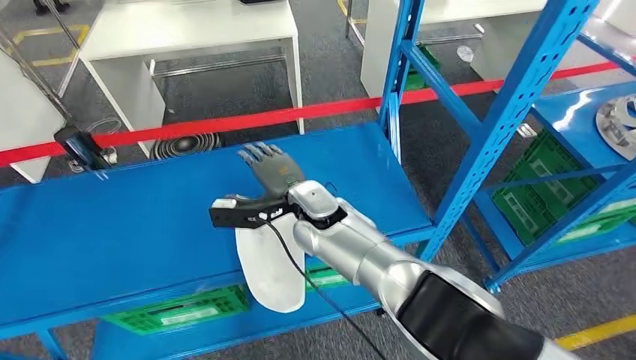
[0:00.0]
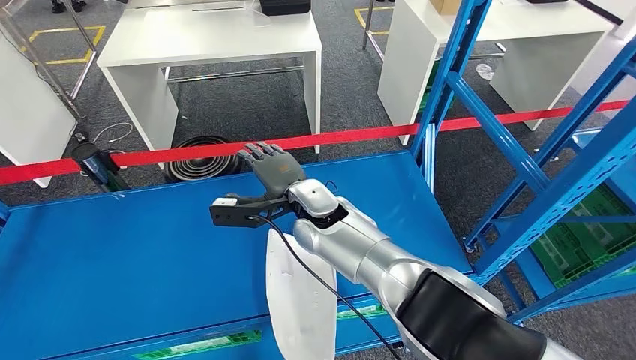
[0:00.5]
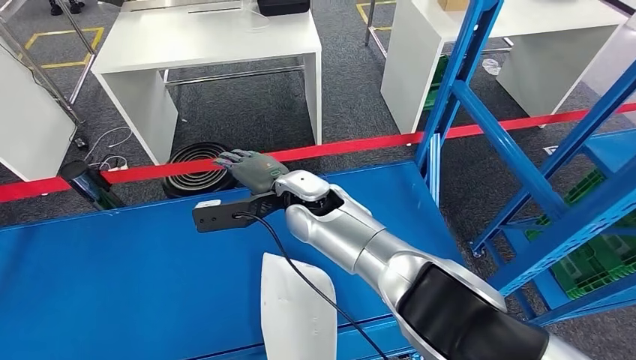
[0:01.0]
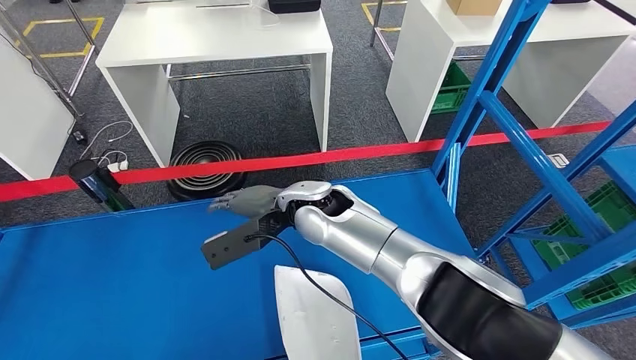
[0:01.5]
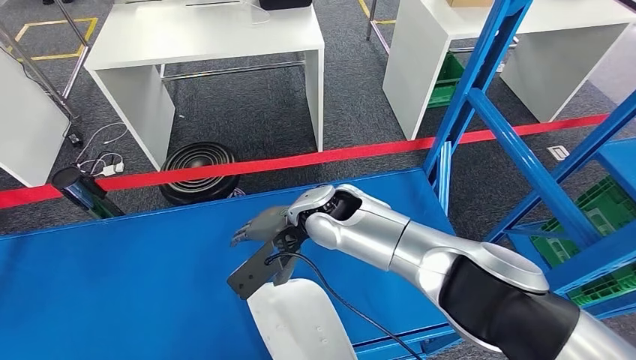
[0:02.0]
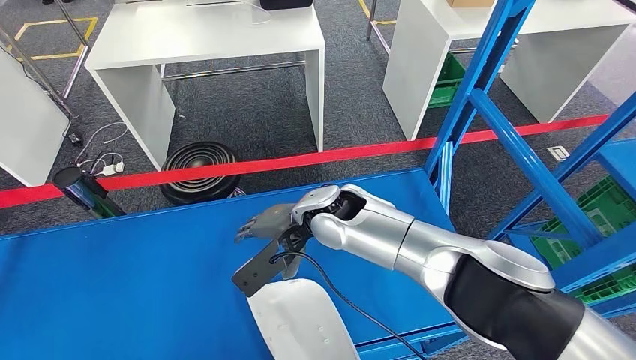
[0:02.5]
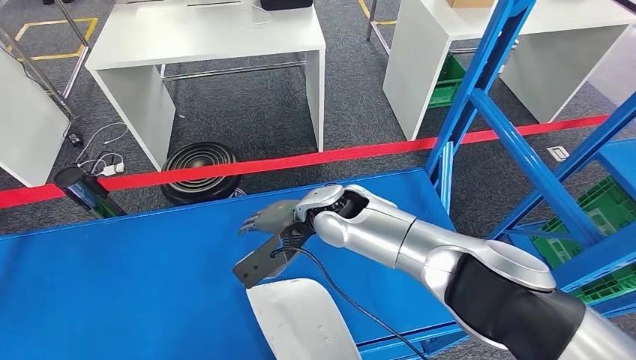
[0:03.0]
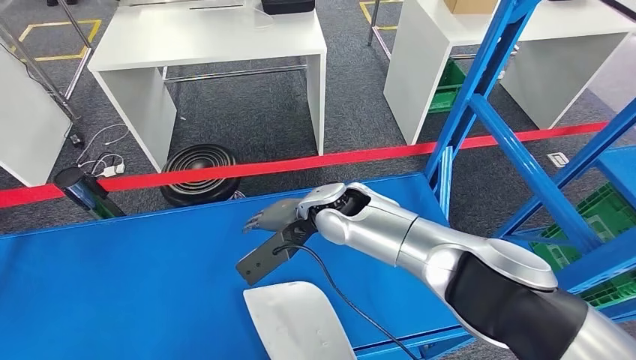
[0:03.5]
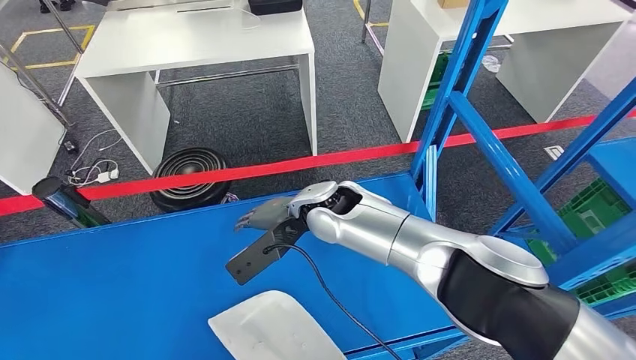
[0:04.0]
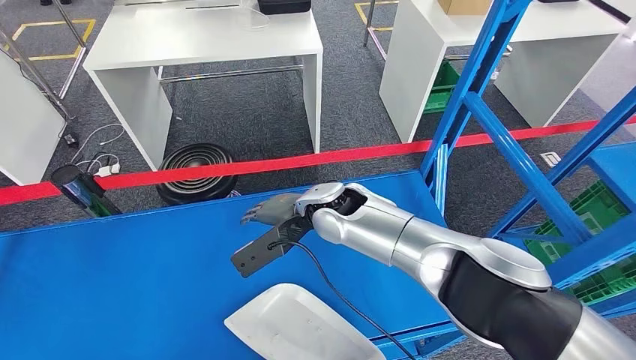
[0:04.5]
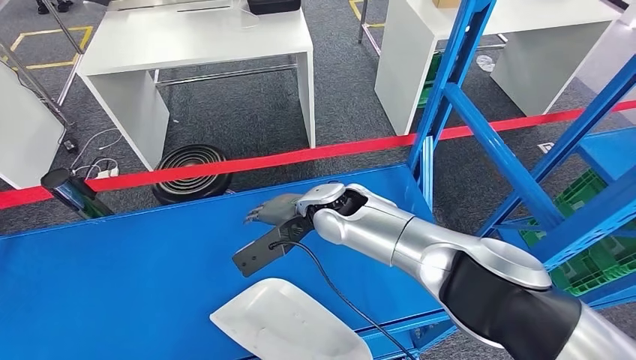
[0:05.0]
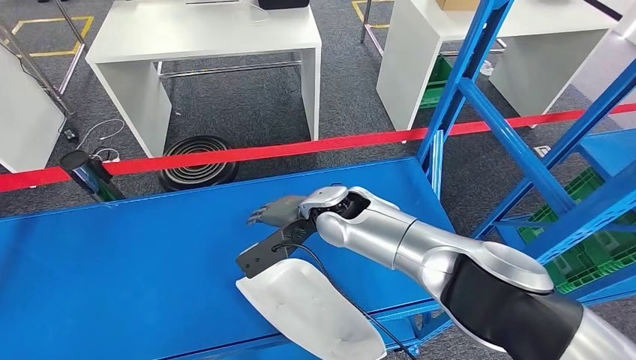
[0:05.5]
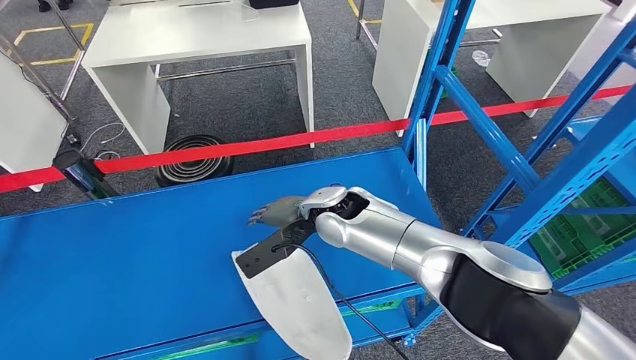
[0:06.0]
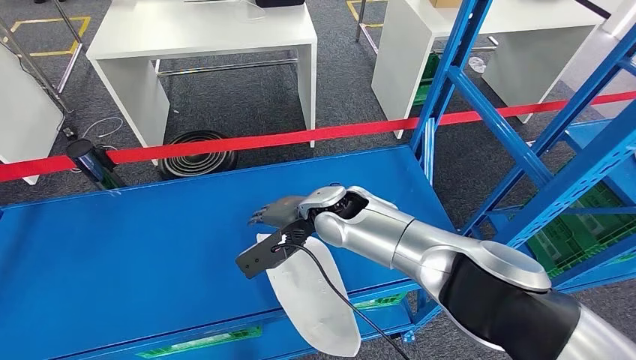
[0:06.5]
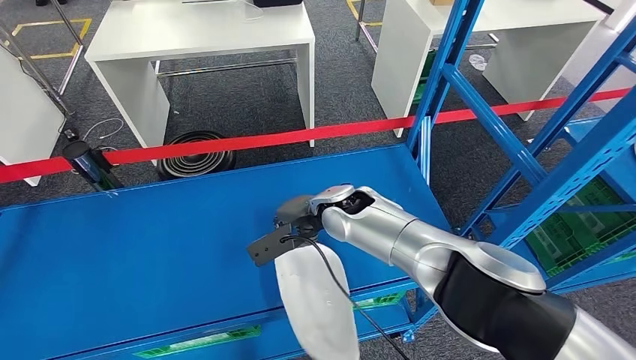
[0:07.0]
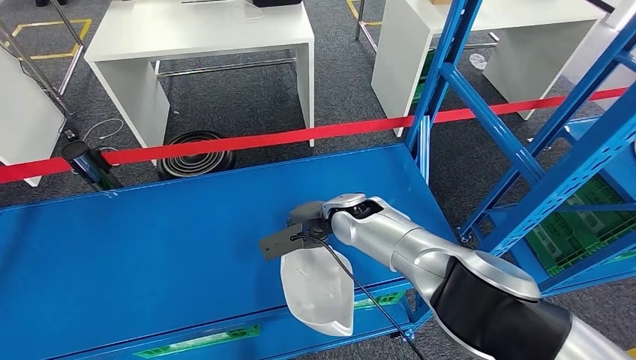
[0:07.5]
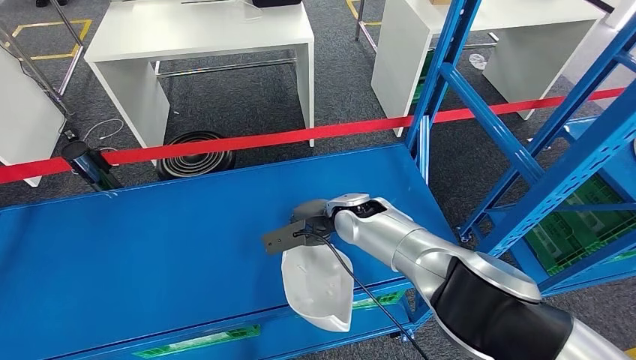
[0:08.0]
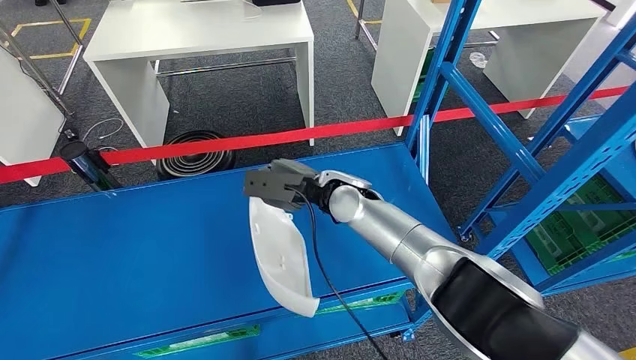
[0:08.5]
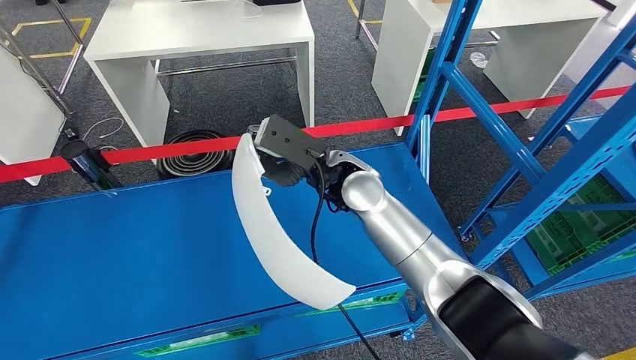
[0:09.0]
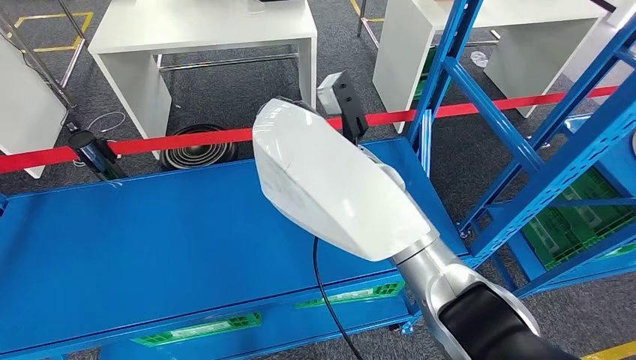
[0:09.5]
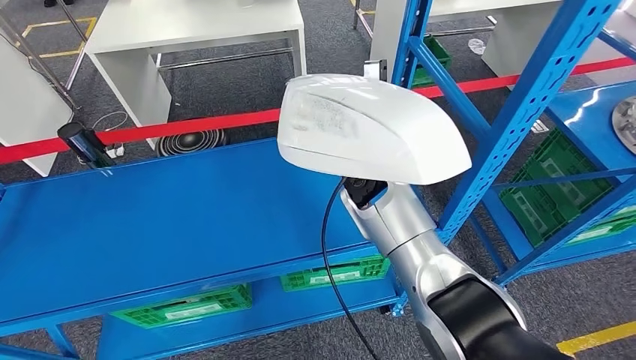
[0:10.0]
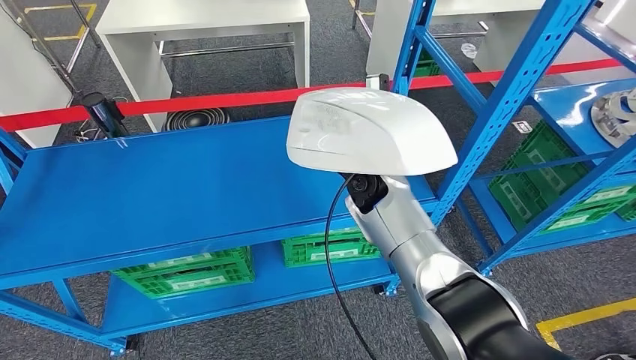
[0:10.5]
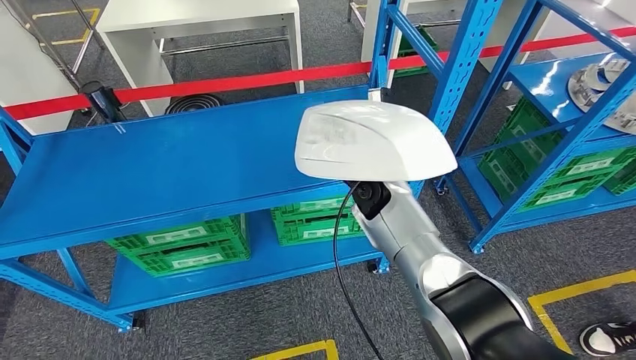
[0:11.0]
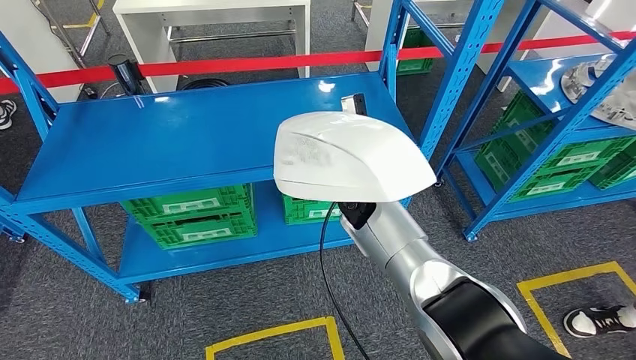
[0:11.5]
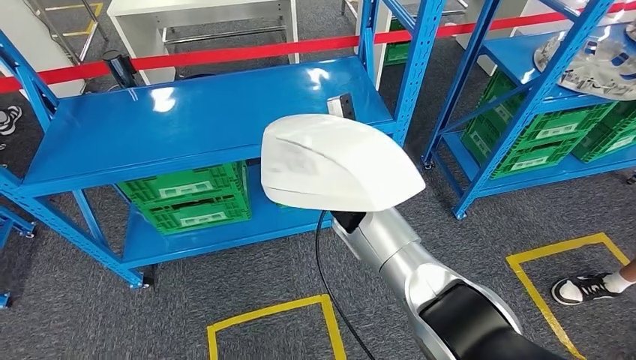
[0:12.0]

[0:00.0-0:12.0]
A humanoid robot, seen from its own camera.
Step, 0:00.0 to 0:09.5: Pick up the small parts from the shelf.

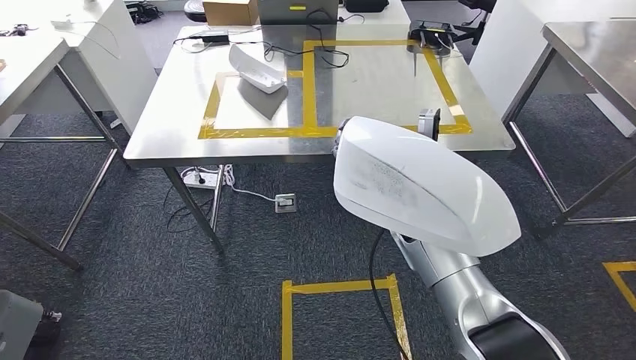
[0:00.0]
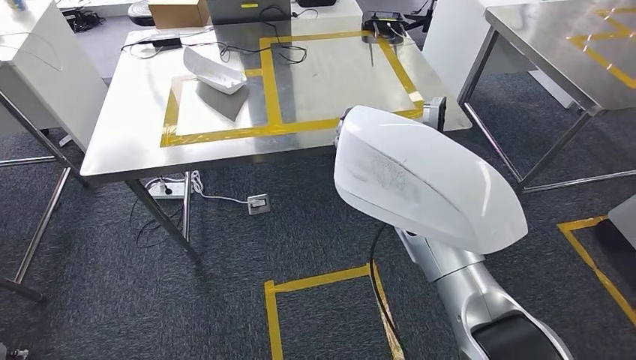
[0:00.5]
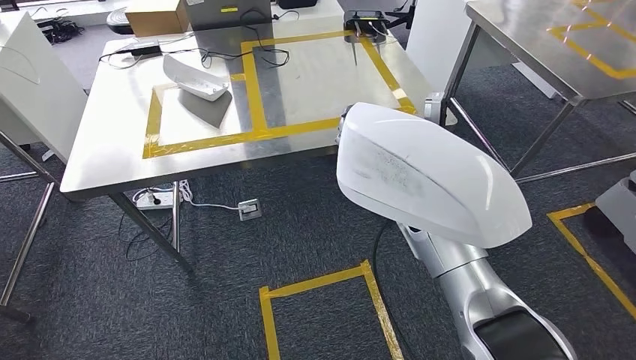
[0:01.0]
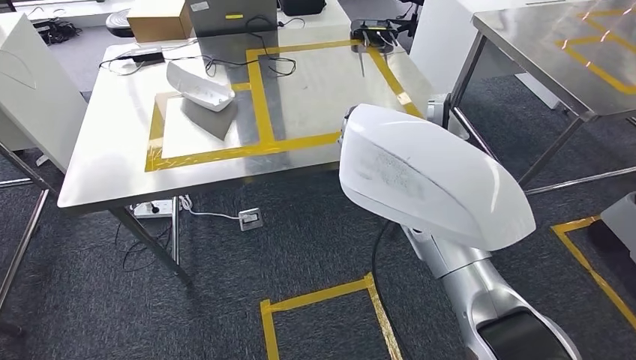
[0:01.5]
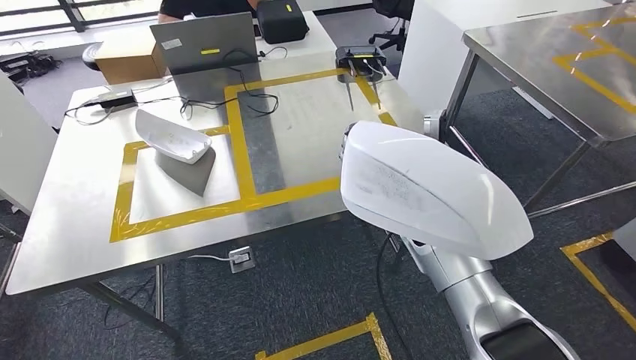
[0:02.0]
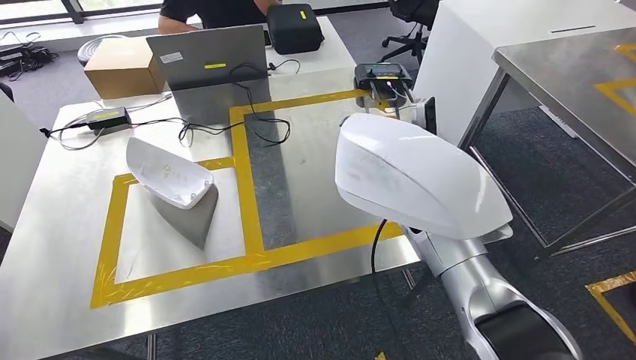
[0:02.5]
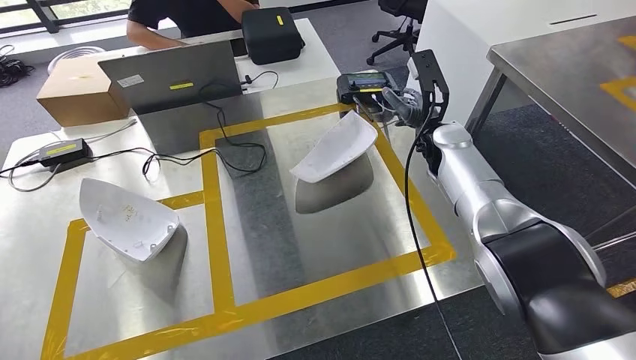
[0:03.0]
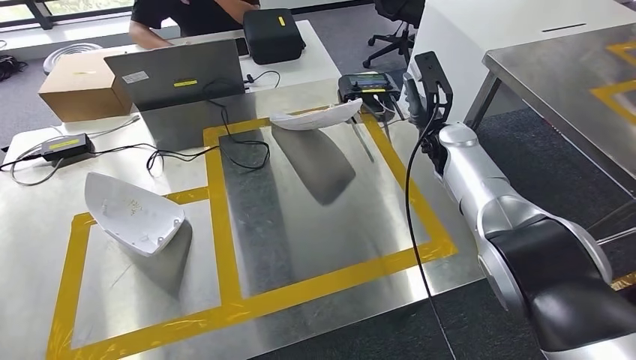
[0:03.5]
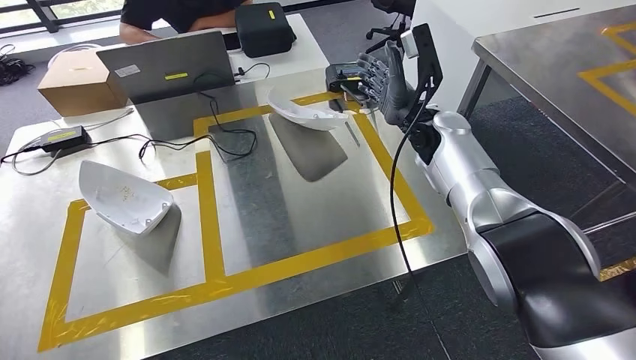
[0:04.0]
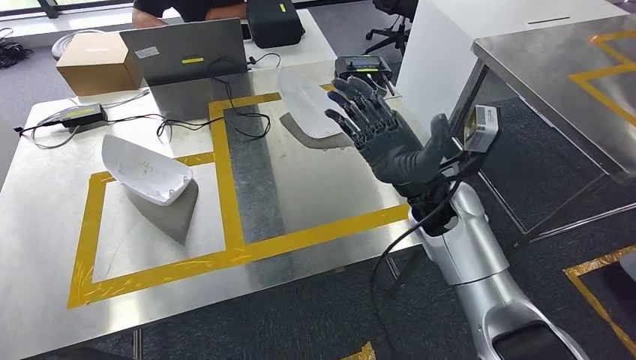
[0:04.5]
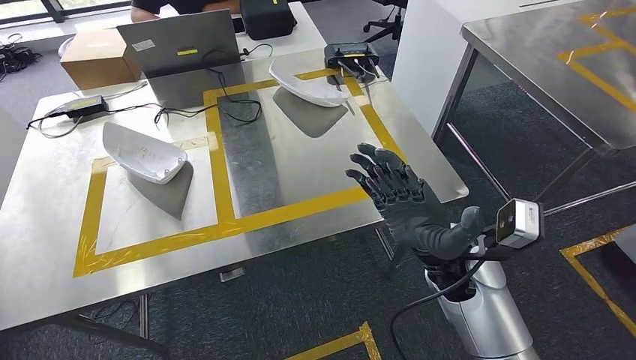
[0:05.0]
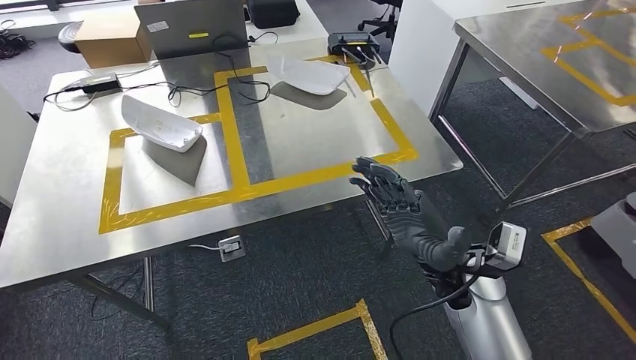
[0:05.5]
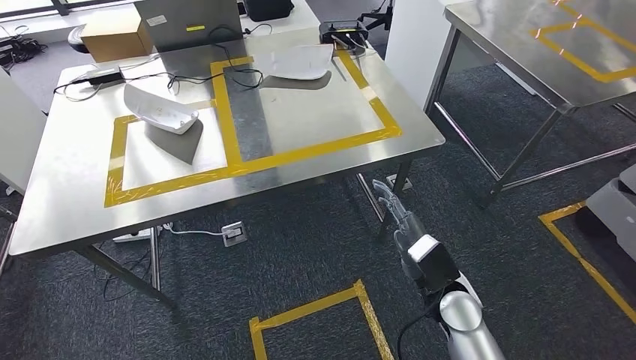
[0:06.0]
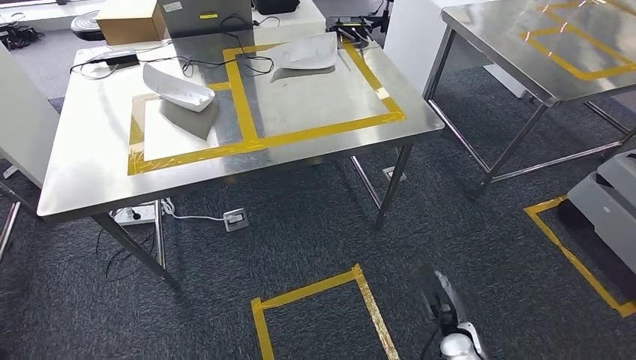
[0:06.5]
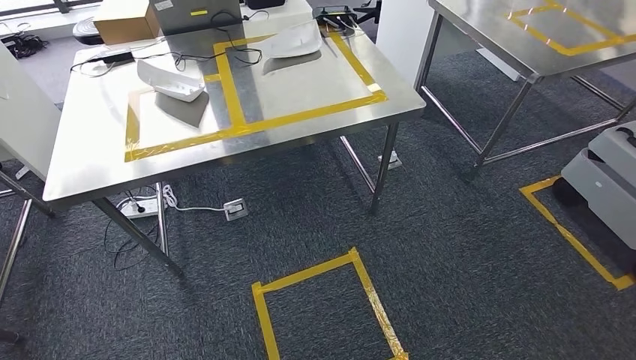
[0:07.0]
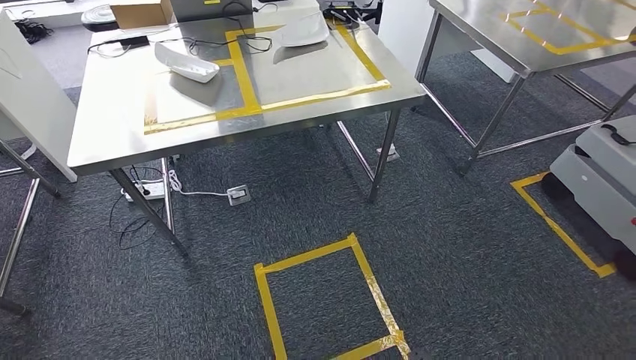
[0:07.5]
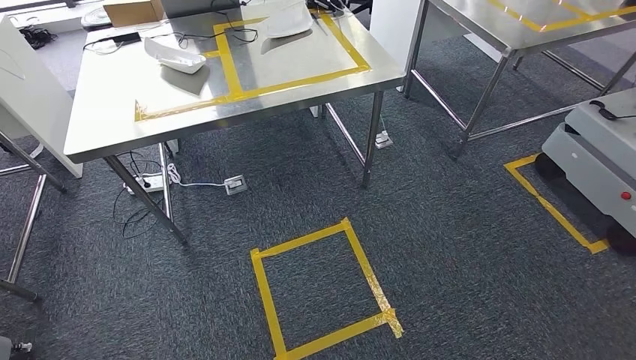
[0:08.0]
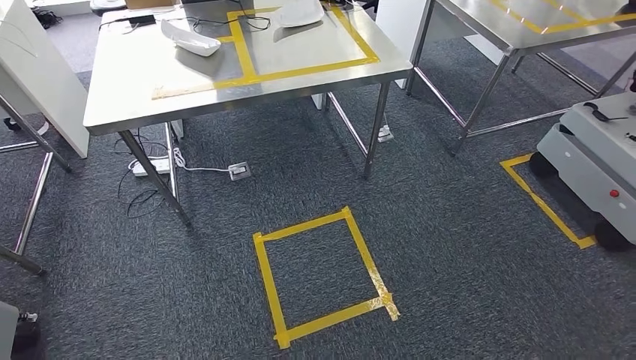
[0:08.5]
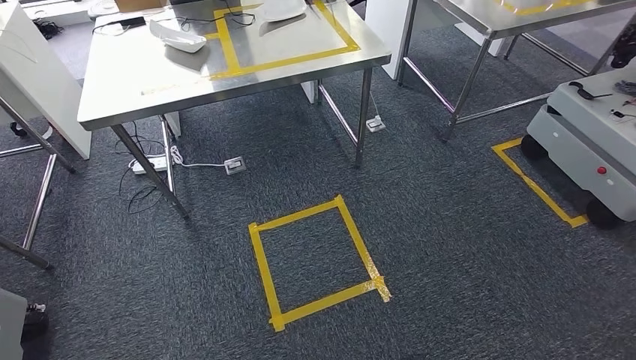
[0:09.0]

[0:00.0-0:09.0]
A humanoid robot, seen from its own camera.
Step, 0:01.5 to 0:04.0: Insert the small parts into the corresponding holes on the workbench.
Step, 0:04.5 to 0:09.0: Move to the initial position at the workbench.
